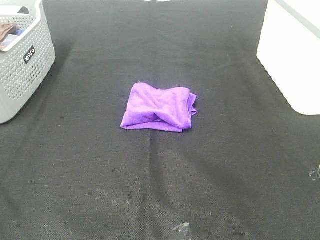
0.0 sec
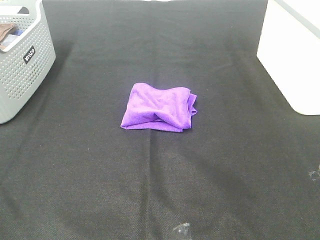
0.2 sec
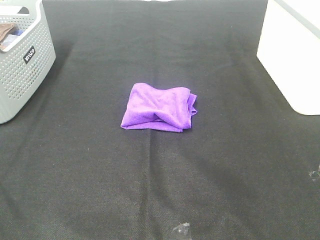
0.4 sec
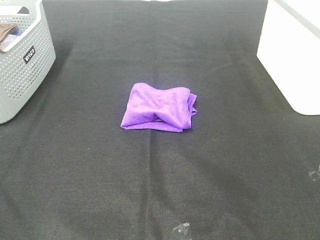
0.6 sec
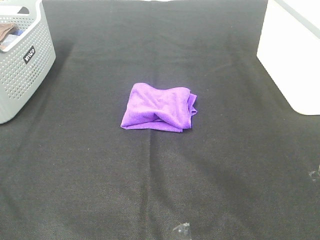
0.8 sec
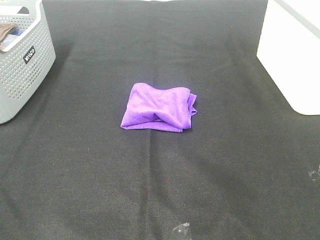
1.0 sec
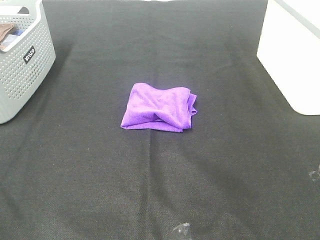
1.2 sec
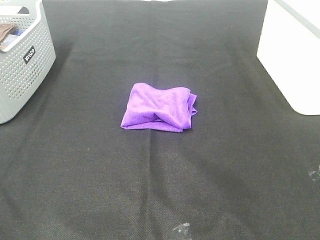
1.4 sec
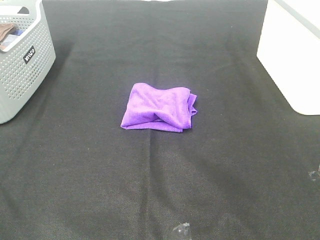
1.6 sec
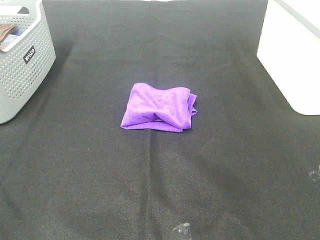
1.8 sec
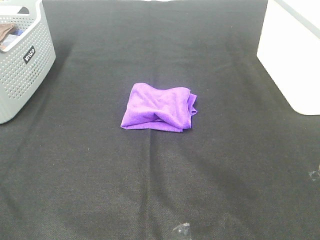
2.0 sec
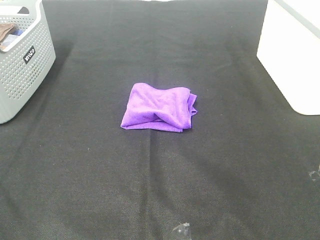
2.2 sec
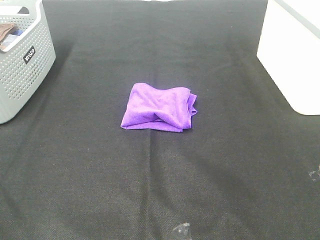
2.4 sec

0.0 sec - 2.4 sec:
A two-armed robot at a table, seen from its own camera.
Task of the whole recording: Fold towels.
1.2 sec - 2.4 sec: Neither gripper changes place.
